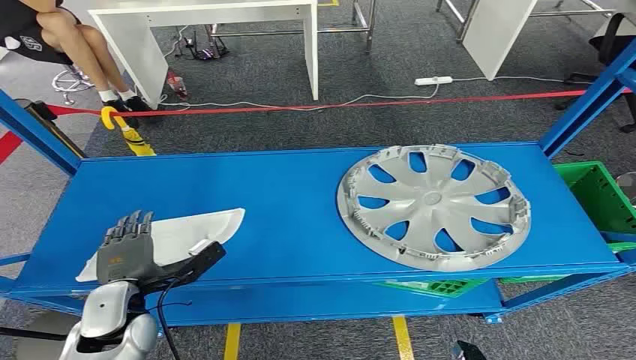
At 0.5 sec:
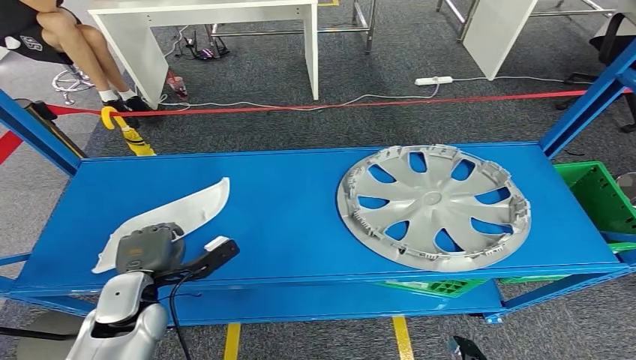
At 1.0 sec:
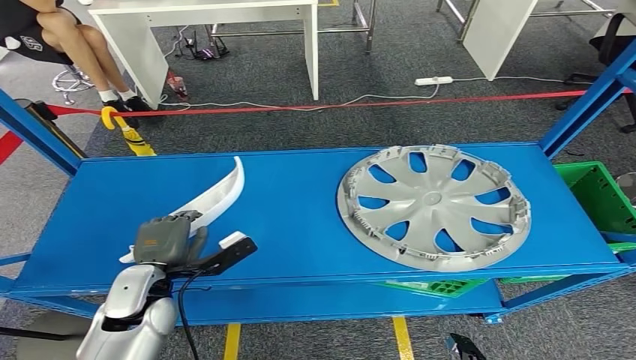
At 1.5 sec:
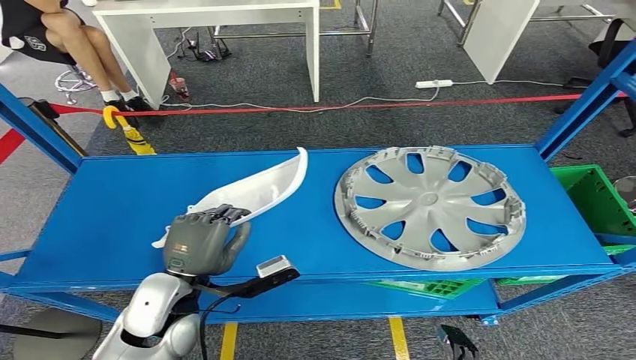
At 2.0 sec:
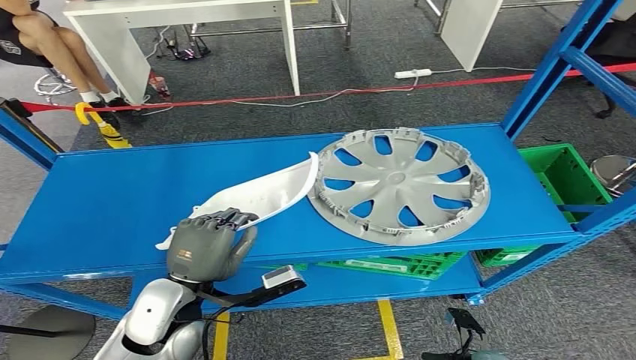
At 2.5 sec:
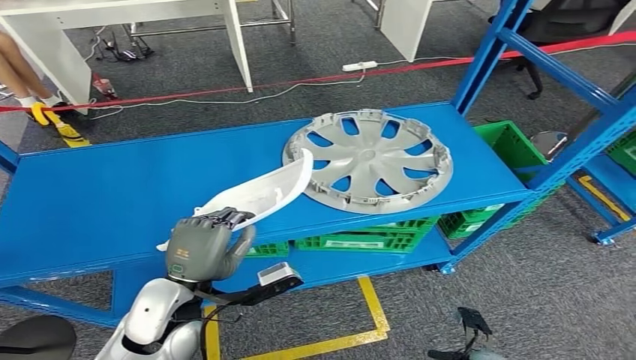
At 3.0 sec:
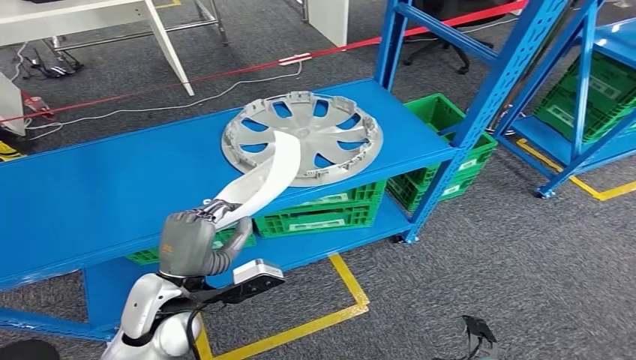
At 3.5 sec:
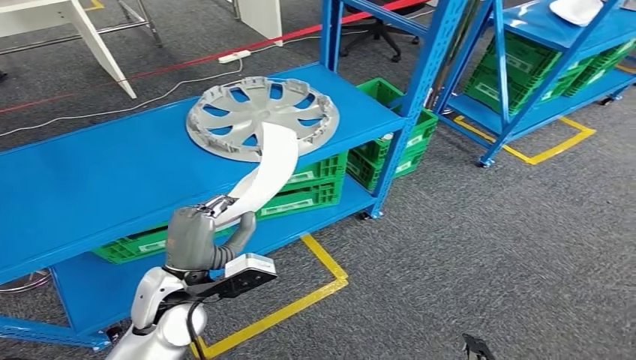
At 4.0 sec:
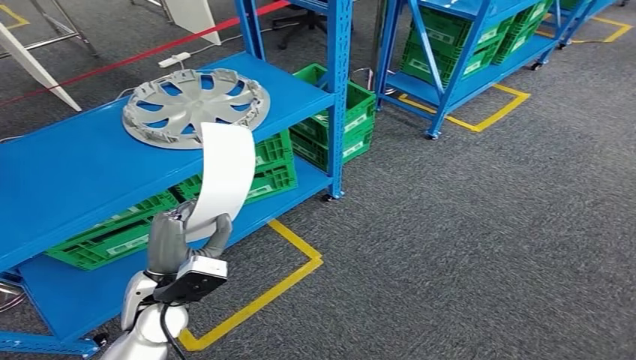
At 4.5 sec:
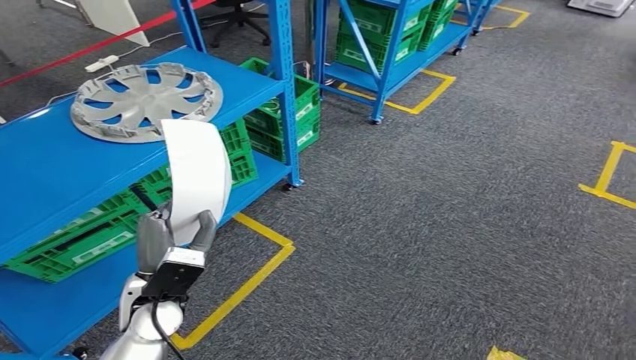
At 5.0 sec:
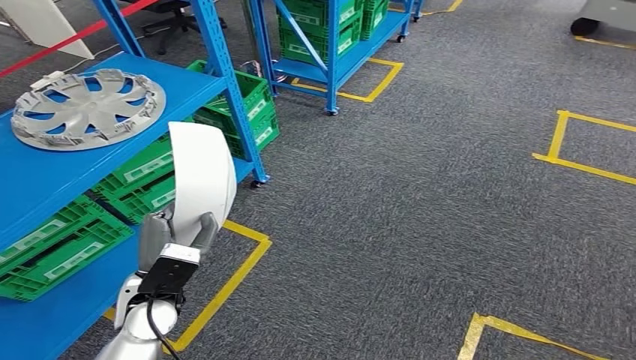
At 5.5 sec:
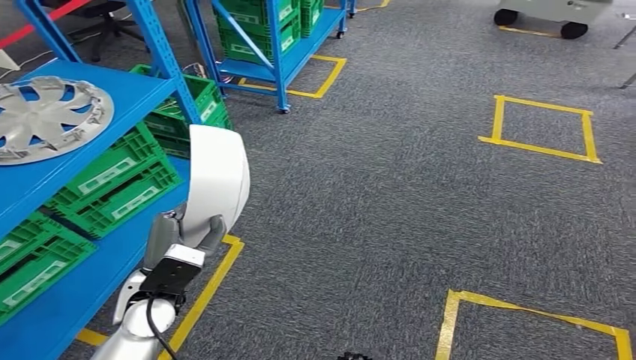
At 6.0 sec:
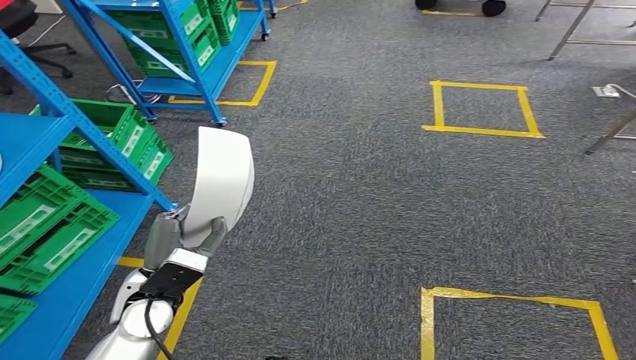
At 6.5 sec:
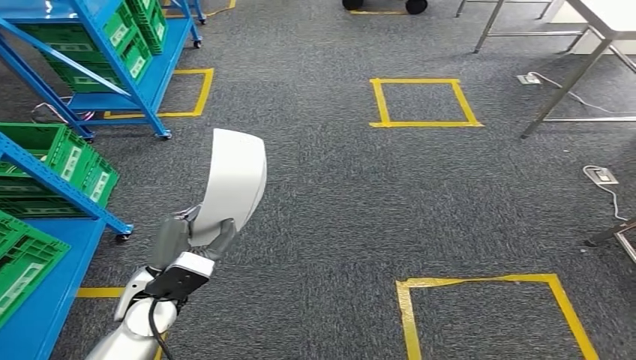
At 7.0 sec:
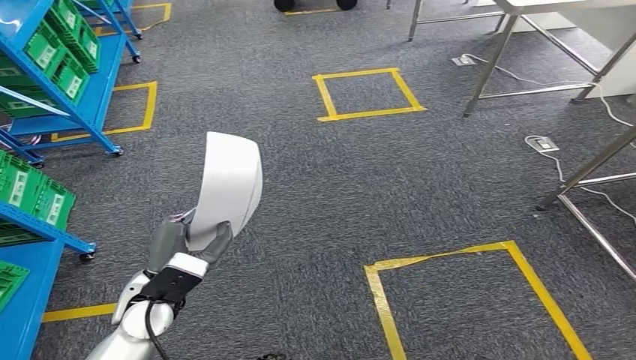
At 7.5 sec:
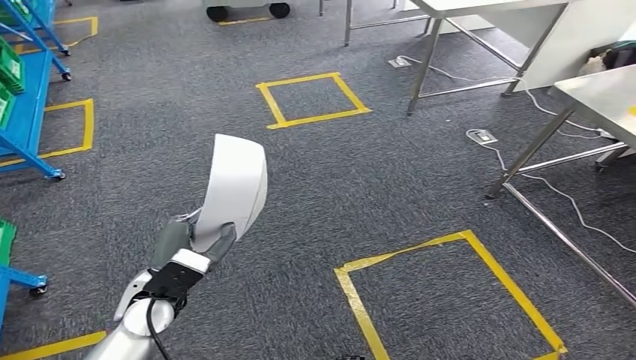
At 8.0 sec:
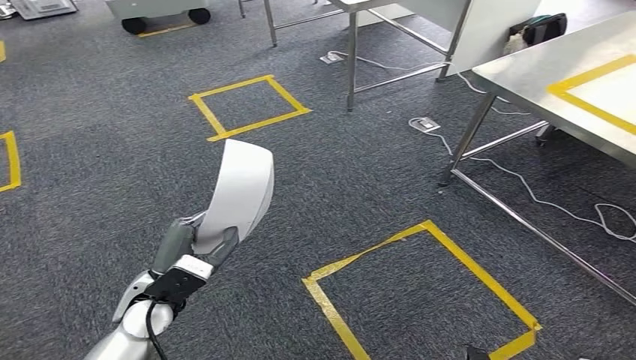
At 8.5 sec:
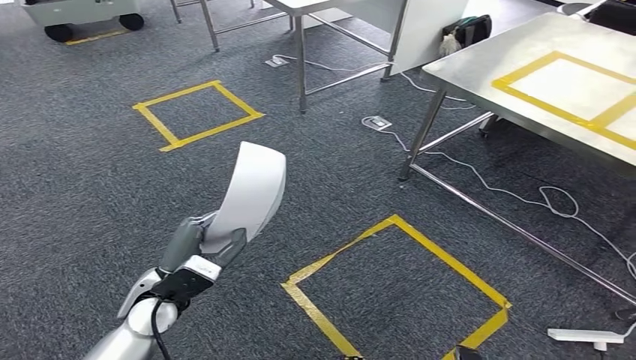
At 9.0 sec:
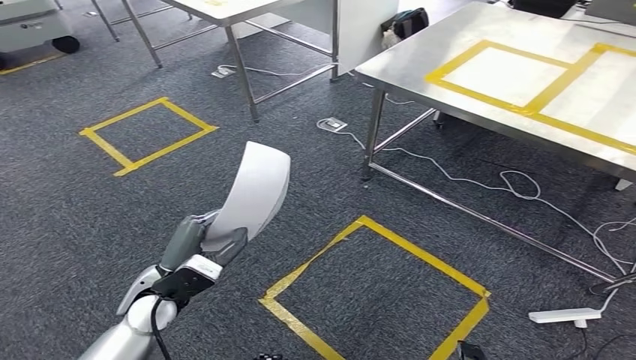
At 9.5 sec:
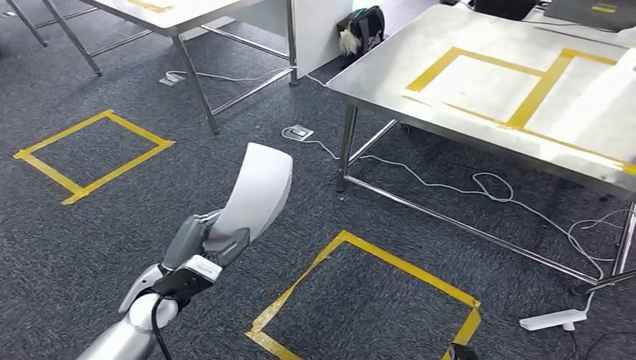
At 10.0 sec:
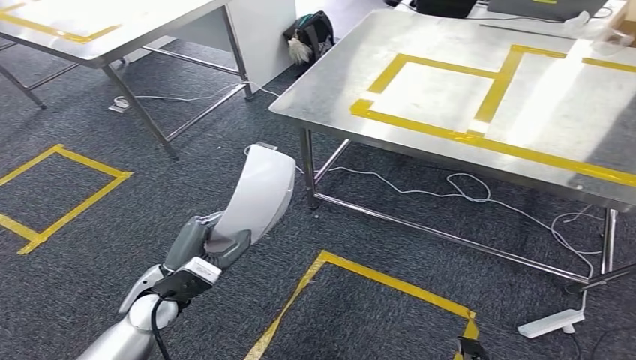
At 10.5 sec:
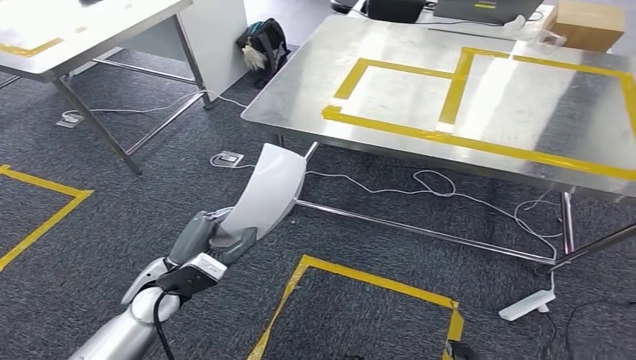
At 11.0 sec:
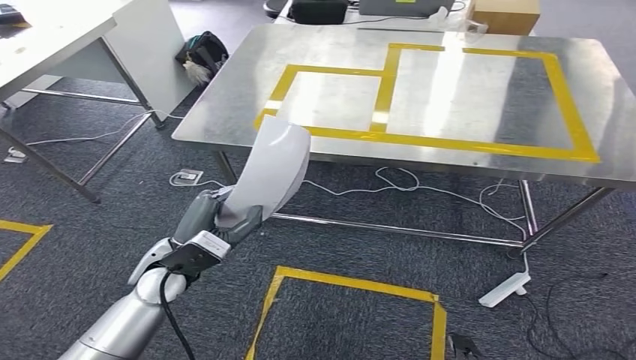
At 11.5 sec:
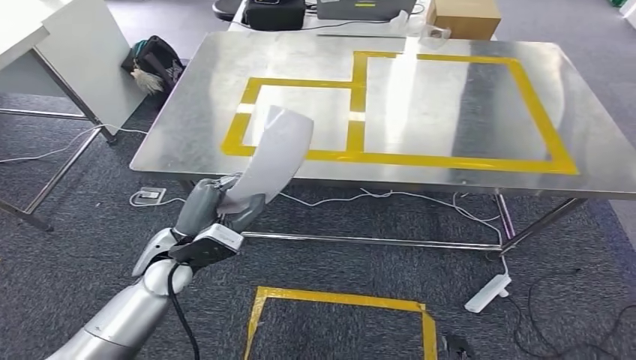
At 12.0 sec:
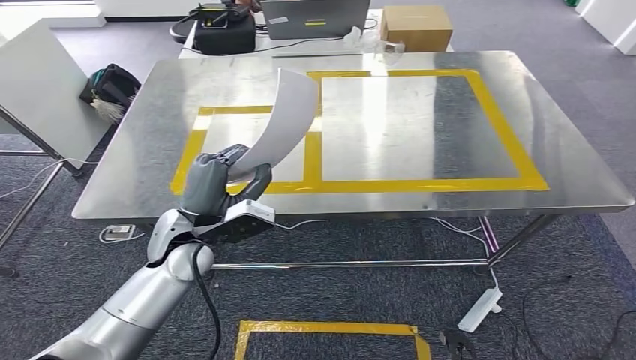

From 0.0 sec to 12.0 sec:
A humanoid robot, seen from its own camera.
Step, from 0.0 sec to 3.0 sec: Pick up the small component from the shelf.
Step, from 3.5 sec to 11.5 sec: Move the small component to the workbench.

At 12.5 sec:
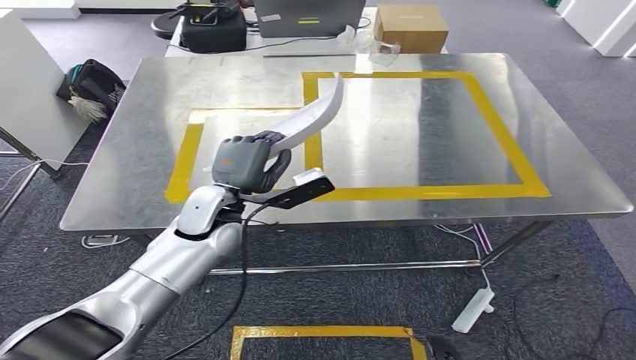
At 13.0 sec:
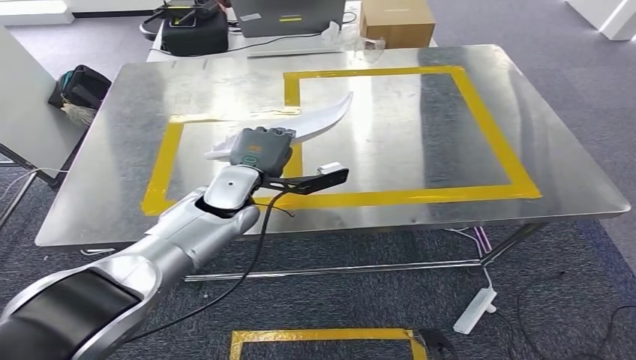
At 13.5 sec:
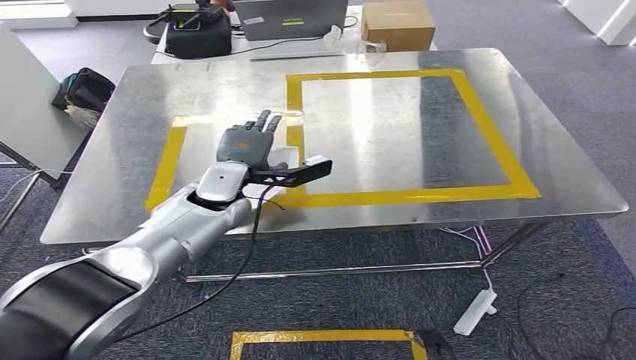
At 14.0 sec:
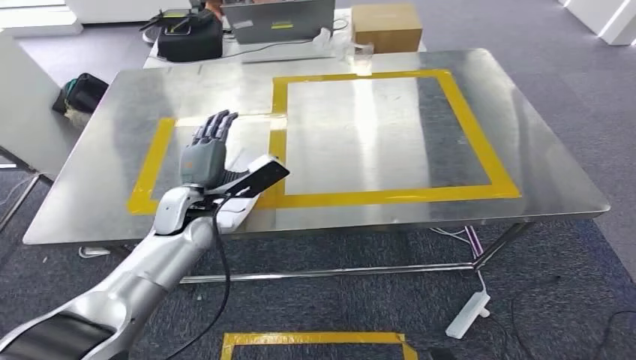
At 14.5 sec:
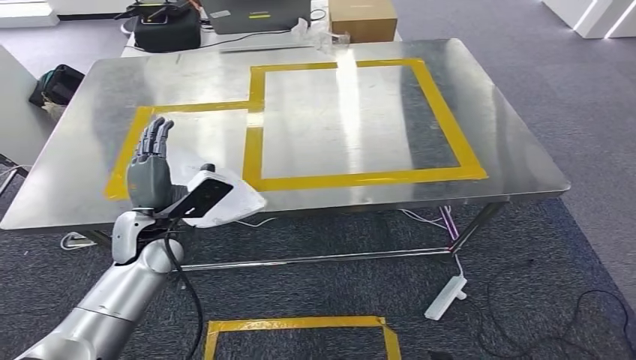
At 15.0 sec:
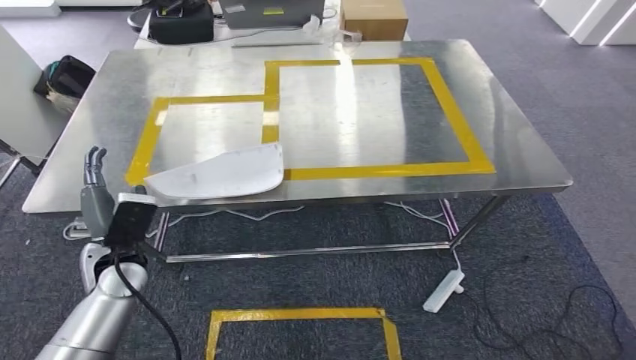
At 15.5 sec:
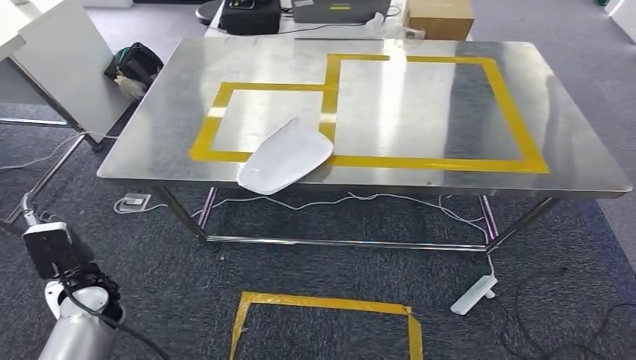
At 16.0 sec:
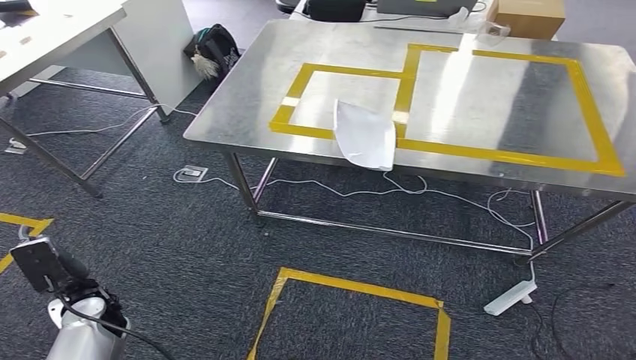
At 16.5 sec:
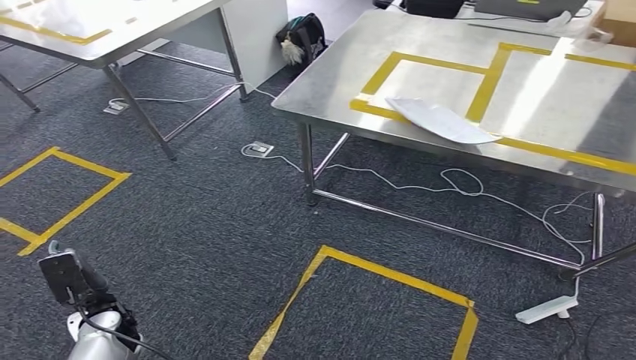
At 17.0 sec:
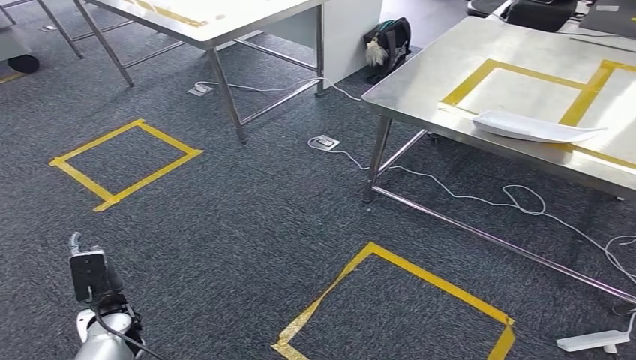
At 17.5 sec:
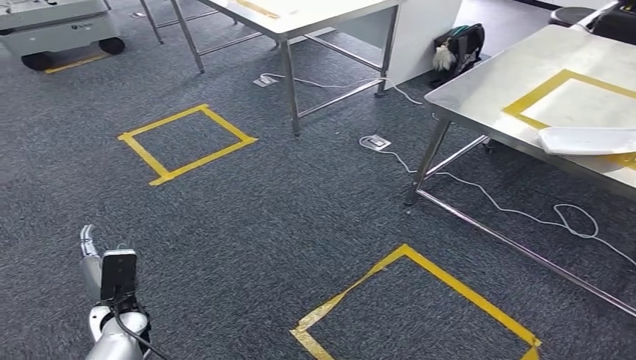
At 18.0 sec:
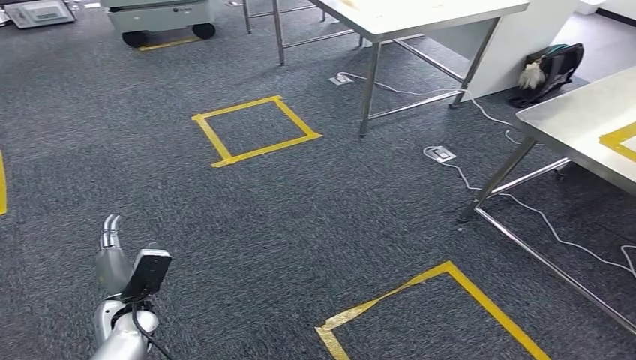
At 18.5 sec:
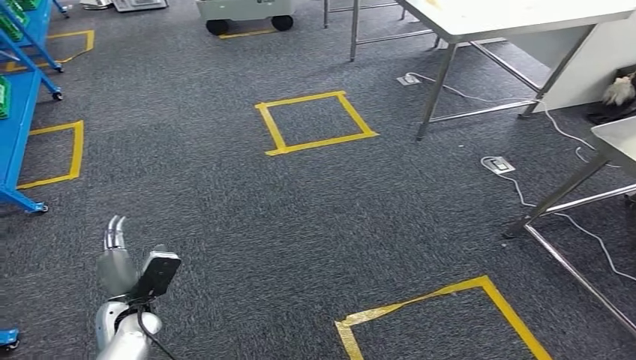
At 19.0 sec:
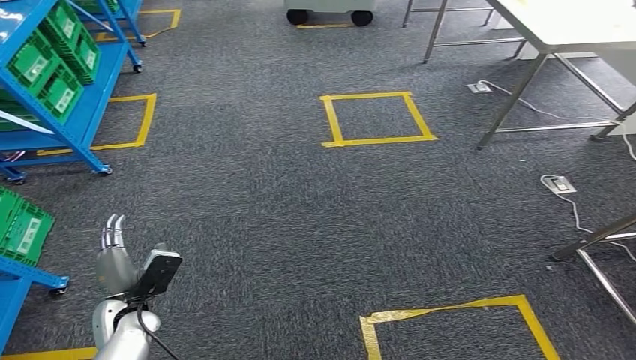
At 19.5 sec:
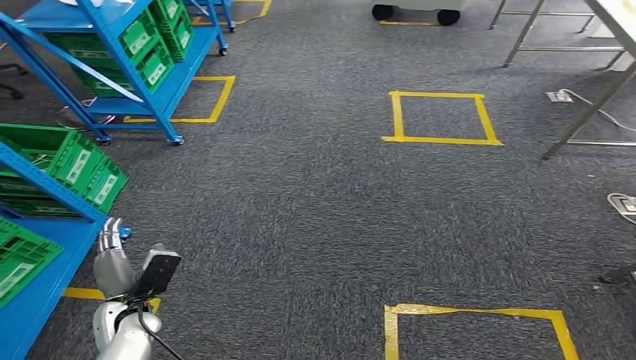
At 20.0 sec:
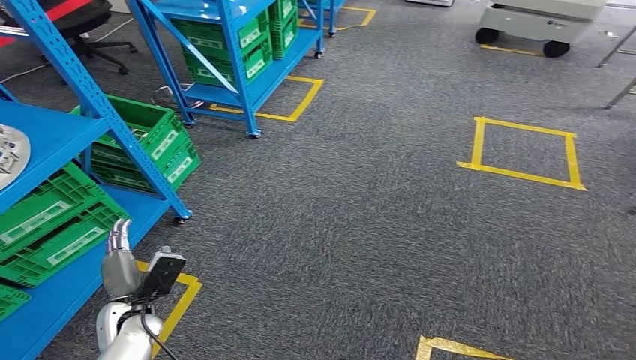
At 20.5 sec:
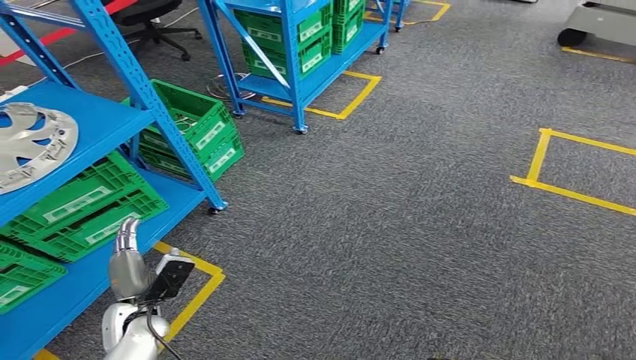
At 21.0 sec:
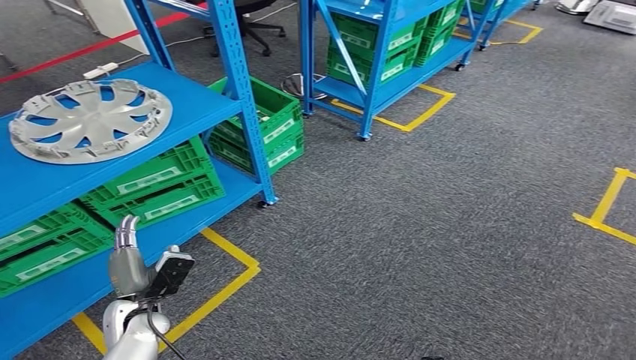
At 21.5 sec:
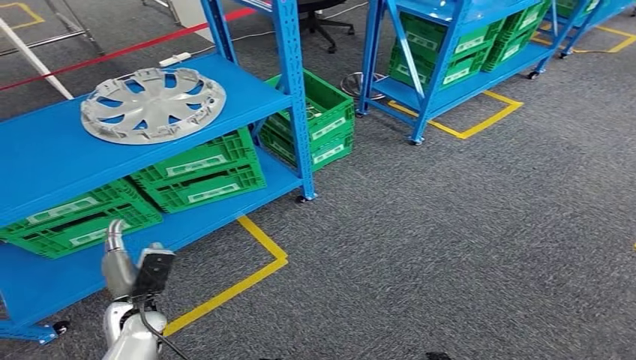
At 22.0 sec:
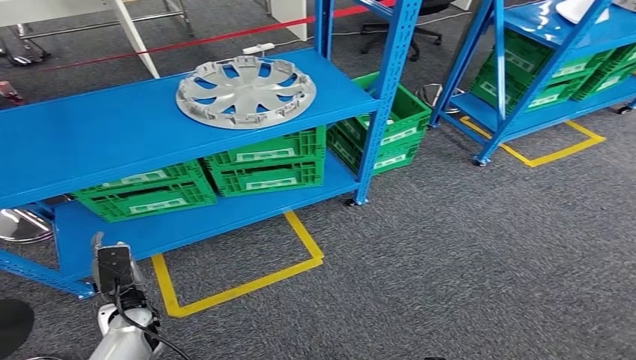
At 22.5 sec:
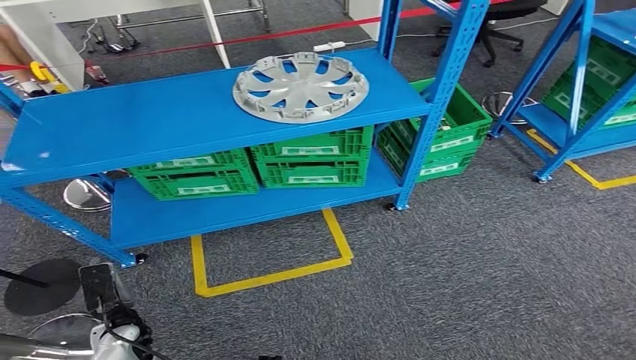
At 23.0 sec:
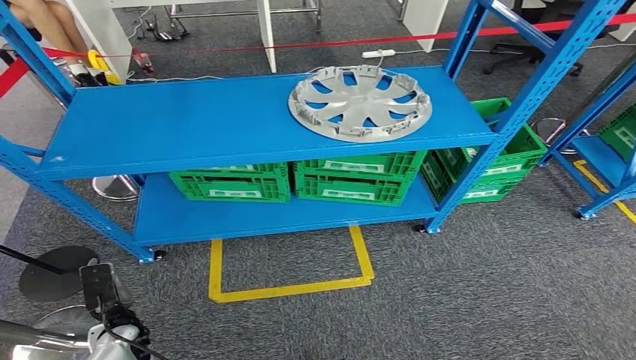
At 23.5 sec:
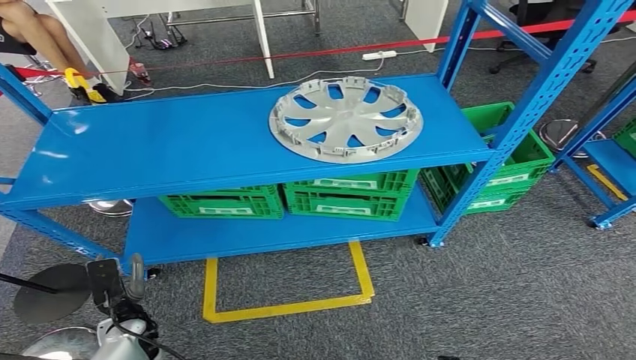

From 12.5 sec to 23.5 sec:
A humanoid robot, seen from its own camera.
Step, from 12.5 sec to 16.5 sec: Insert the small component into the corresponding slot on the workbench.
Step, from 17.0 sec to 23.5 sec: Return to the initial position at the workbench.
